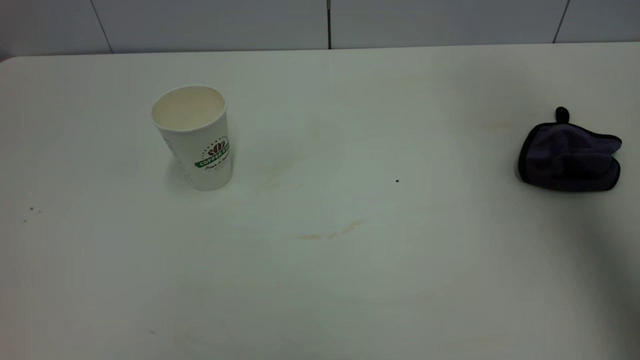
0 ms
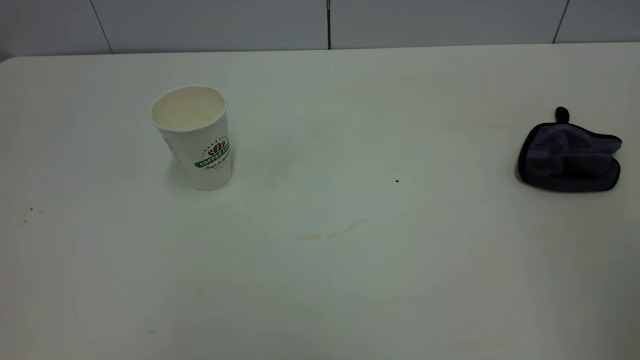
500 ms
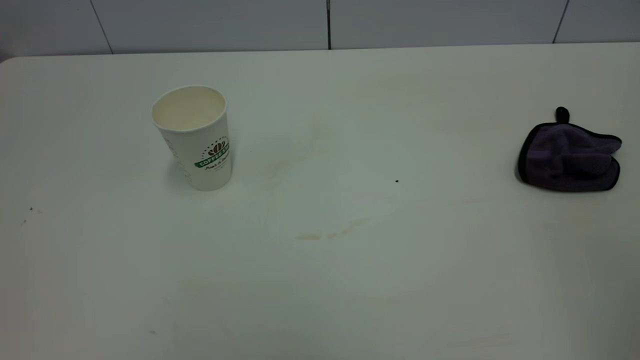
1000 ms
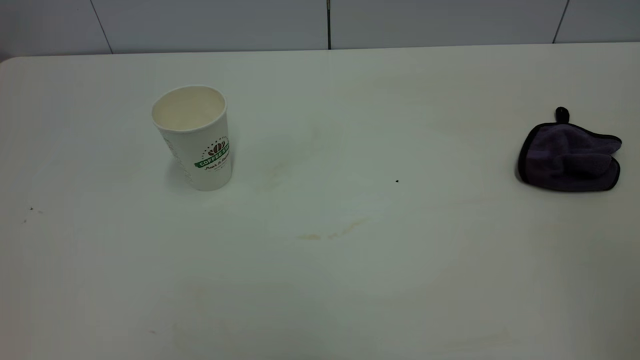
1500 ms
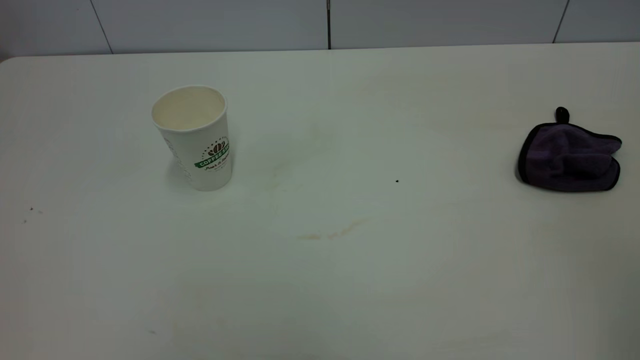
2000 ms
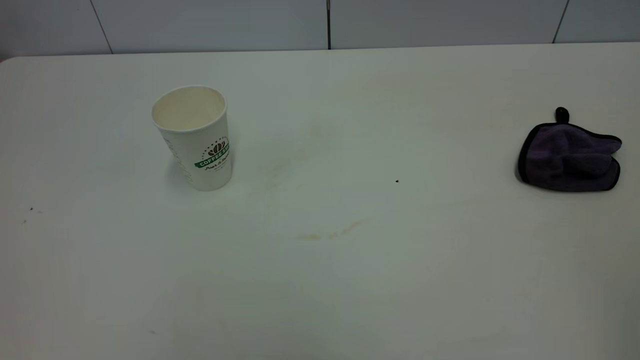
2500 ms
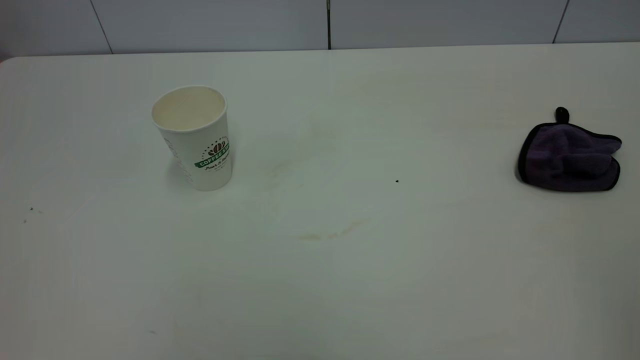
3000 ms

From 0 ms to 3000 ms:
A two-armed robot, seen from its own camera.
Task of the whole recording: the left gripper pick up the fallen cup and place it upright, the right gripper grasp the purple rag and wipe the tea stain on the table, the right gripper put the purple rag back in its original position.
From 0 ms to 1500 ms: The right gripper moves backward, approximately 25 cm.

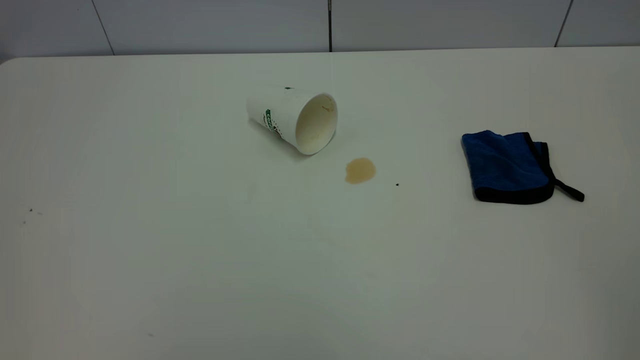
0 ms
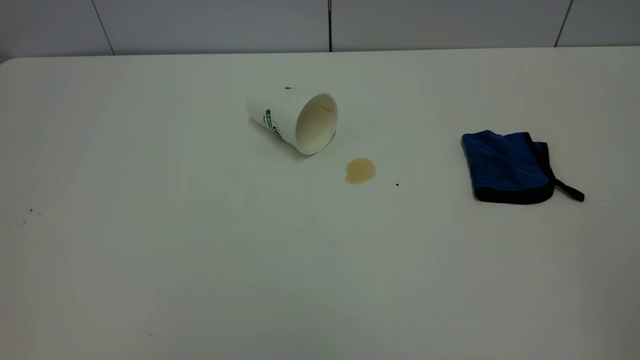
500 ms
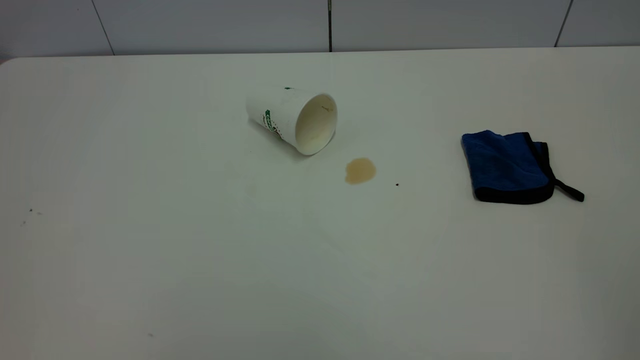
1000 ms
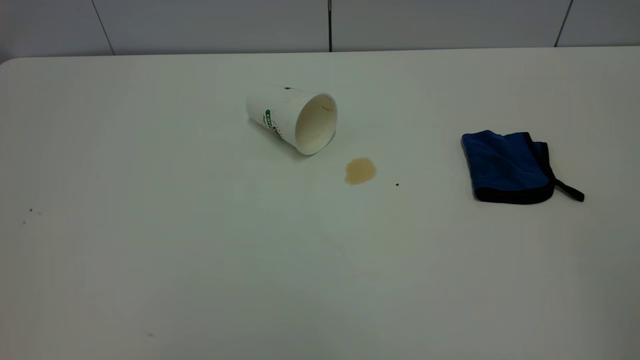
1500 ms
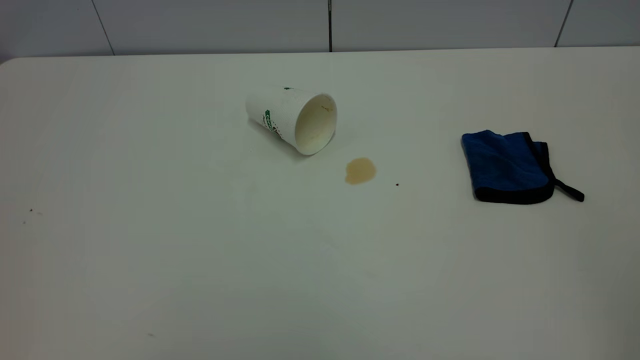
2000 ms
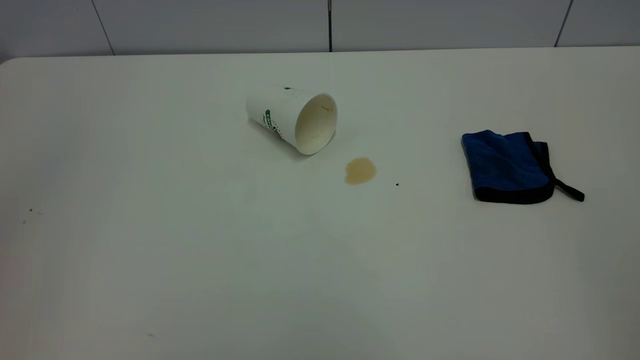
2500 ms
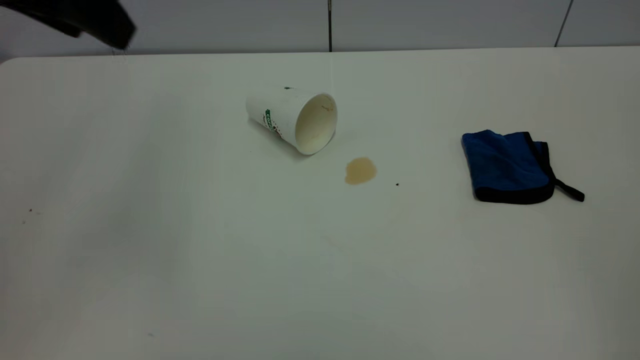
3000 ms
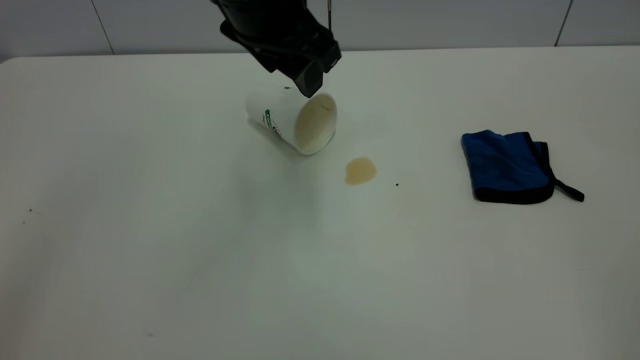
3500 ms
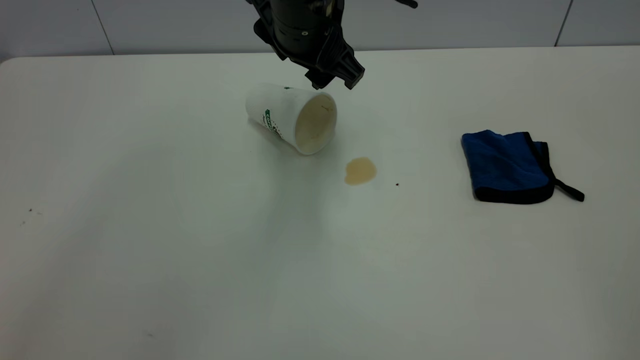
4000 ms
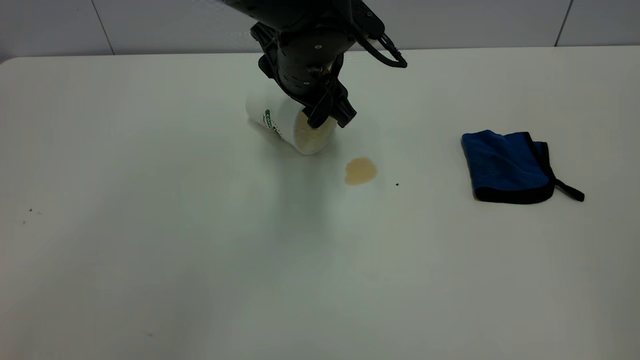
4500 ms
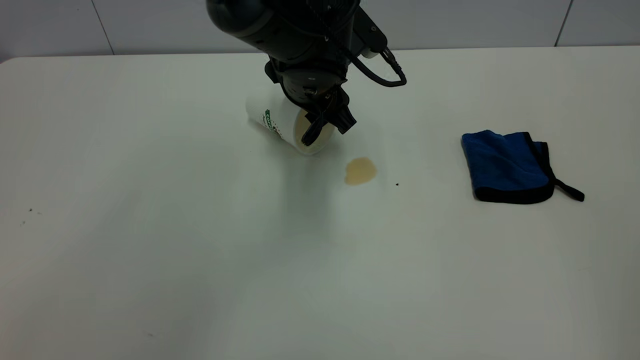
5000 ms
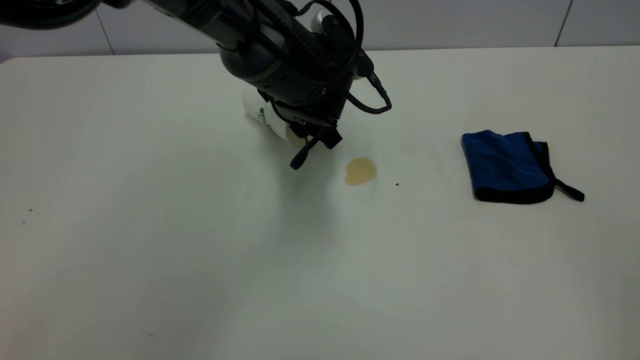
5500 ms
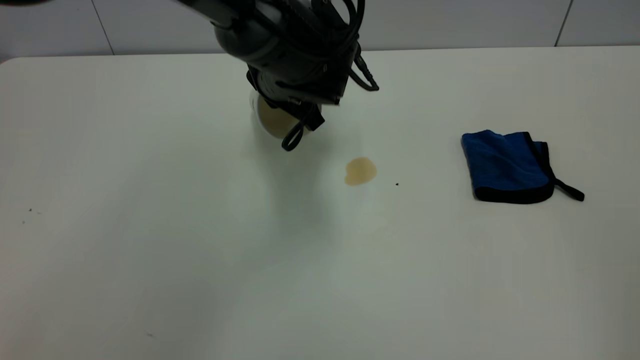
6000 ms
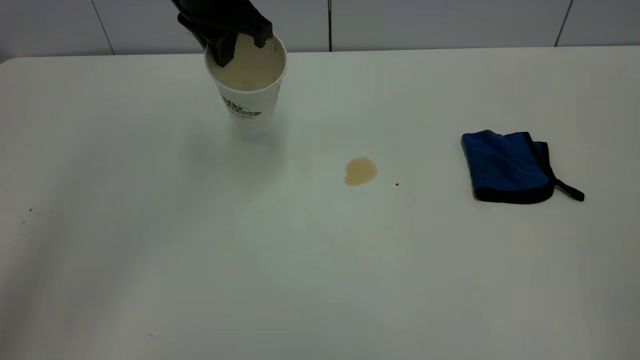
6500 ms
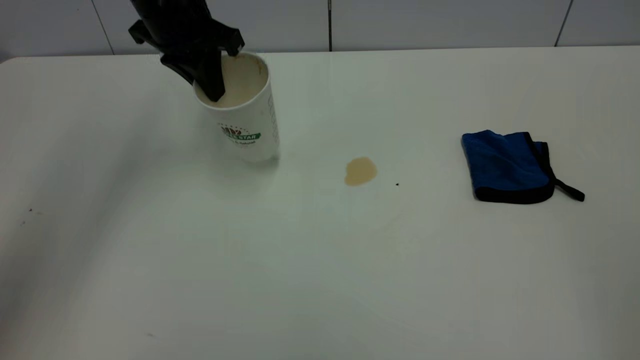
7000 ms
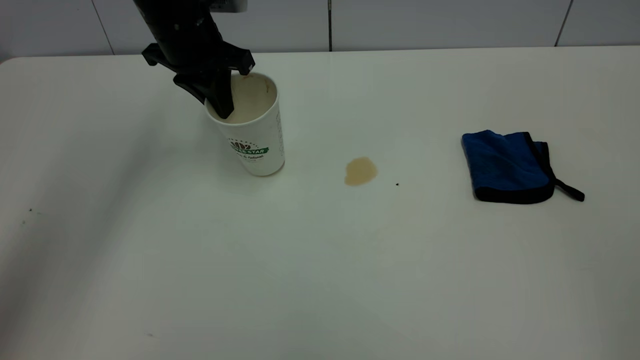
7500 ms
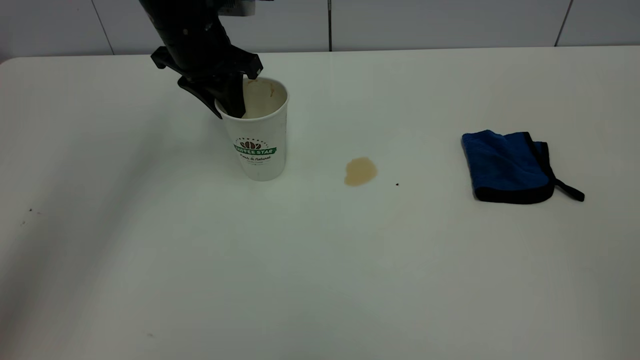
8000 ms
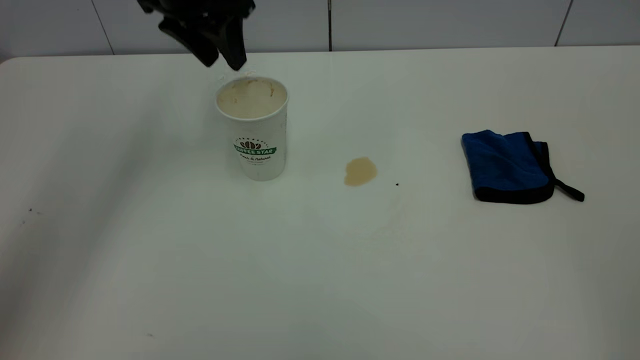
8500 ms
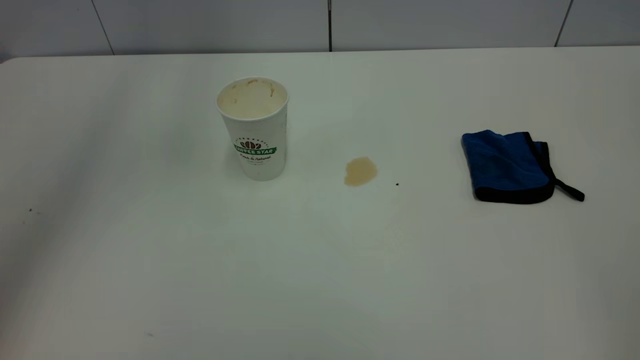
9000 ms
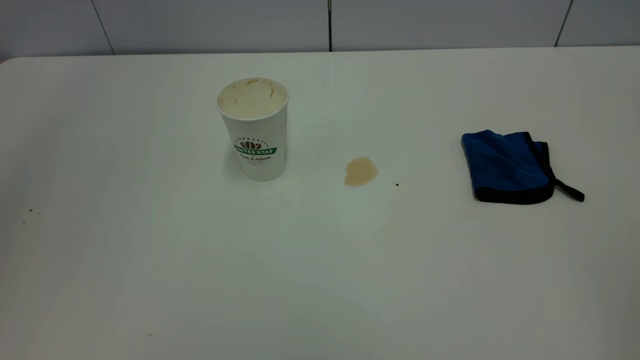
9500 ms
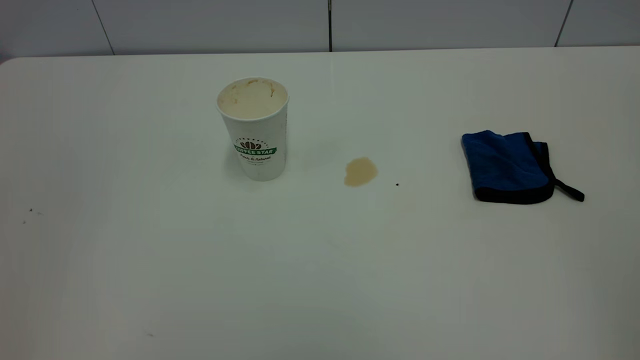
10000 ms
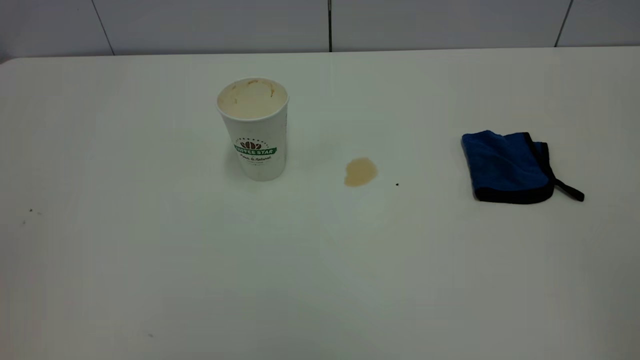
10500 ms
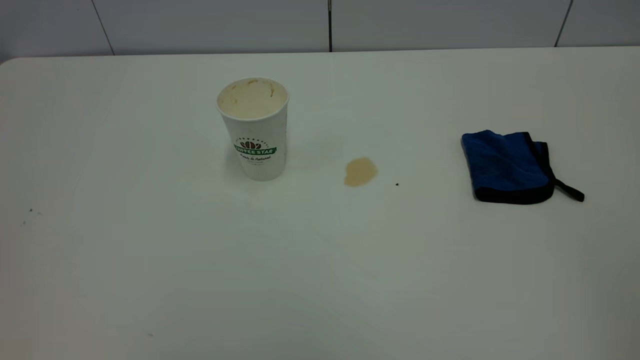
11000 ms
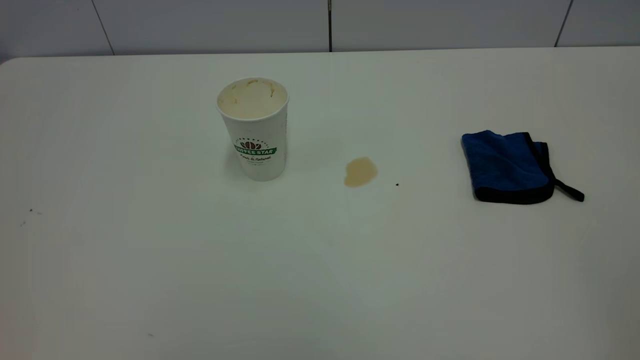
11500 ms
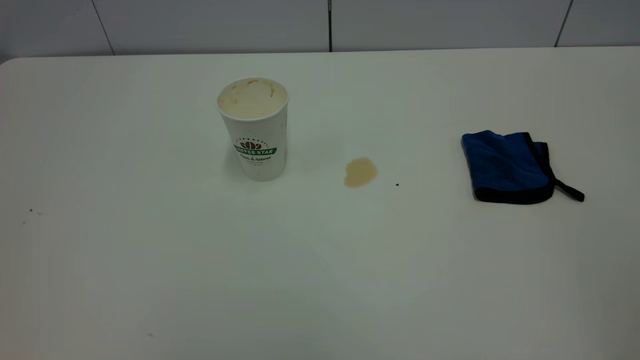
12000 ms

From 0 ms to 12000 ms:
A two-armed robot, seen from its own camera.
Task of the whole recording: the left gripper pick up the fallen cup and place it upright, the right gripper grasp the blue rag and wipe the tea stain on the table, the right gripper put the blue rag back in its original position.
Step, from 0 ms to 8000 ms: Stand the paper cup upright.
From 2000 ms to 4000 ms: The left gripper is displaced forward, to the right and downward by about 50 cm.
From 4000 ms to 6000 ms: The left gripper goes approximately 5 cm downward, and closes its fingers.
From 6000 ms to 8000 ms: The left gripper travels to the left and forward by approximately 15 cm, and opens its fingers.
From 8000 ms to 10000 ms: The left gripper moves backward and upward, roughly 40 cm.

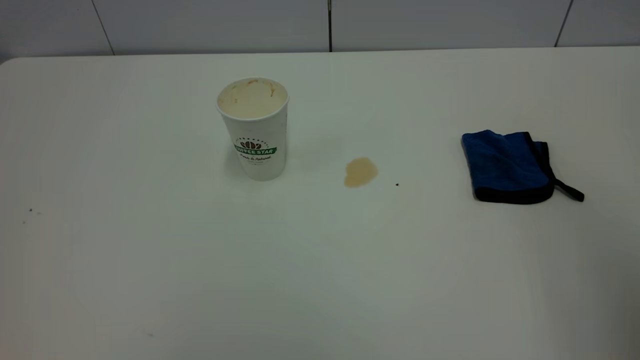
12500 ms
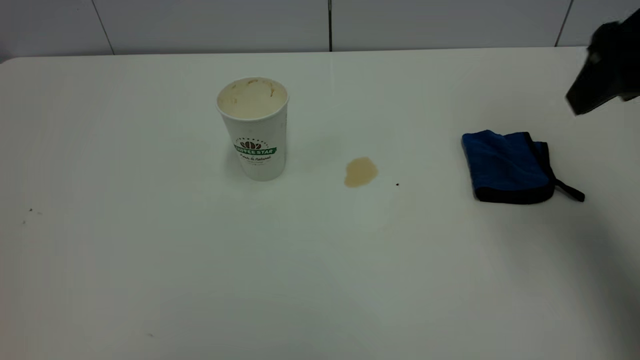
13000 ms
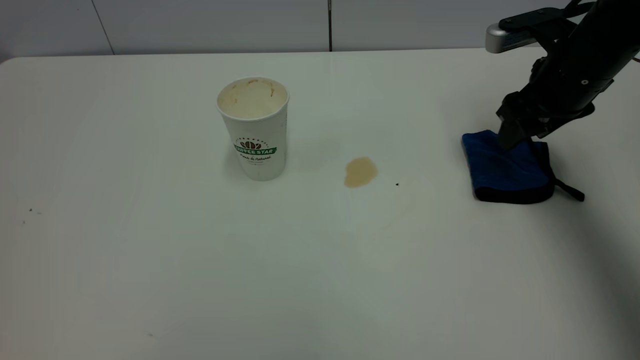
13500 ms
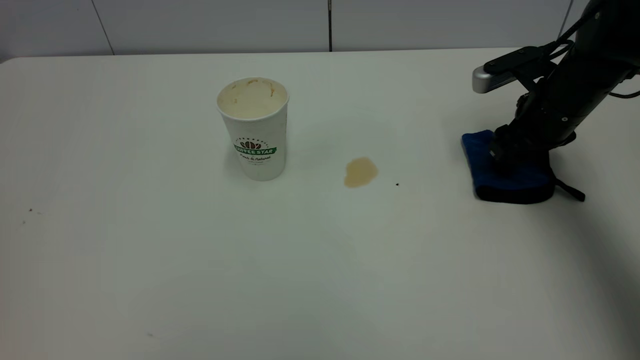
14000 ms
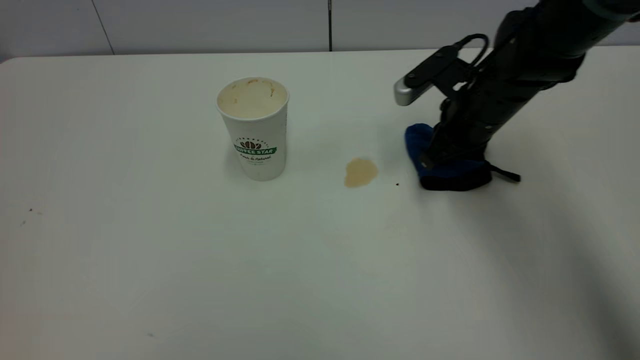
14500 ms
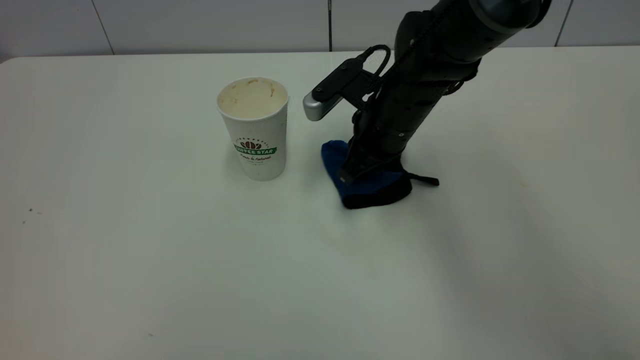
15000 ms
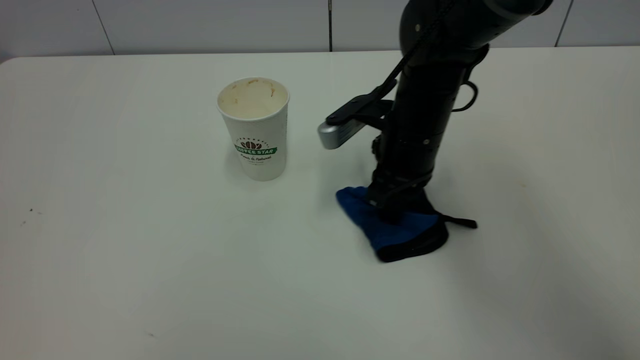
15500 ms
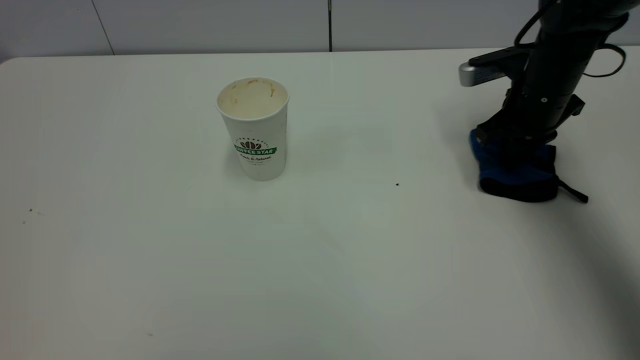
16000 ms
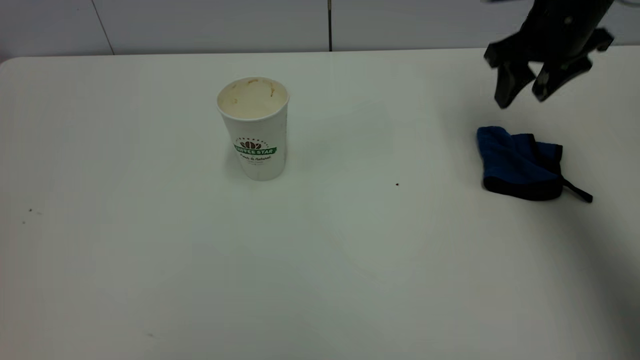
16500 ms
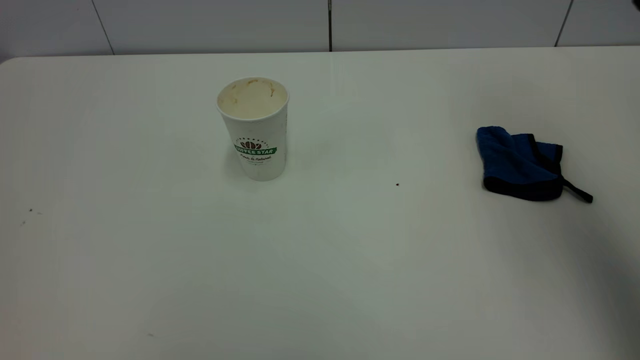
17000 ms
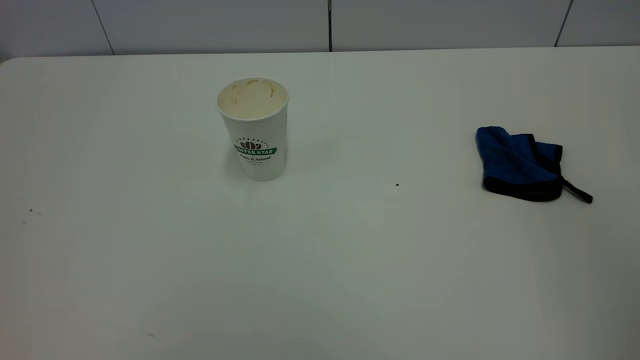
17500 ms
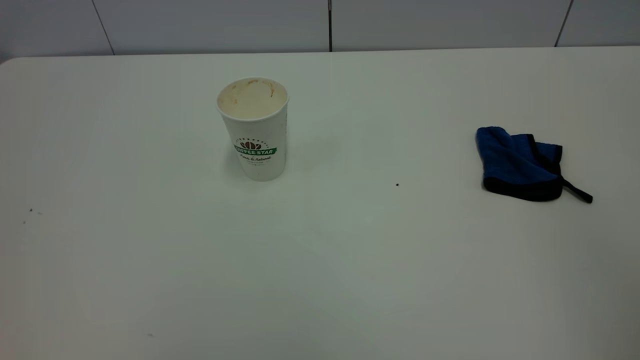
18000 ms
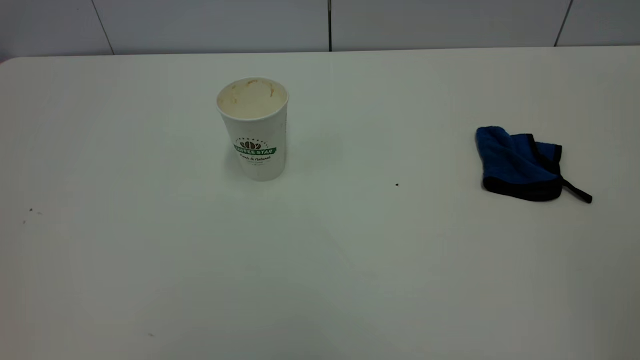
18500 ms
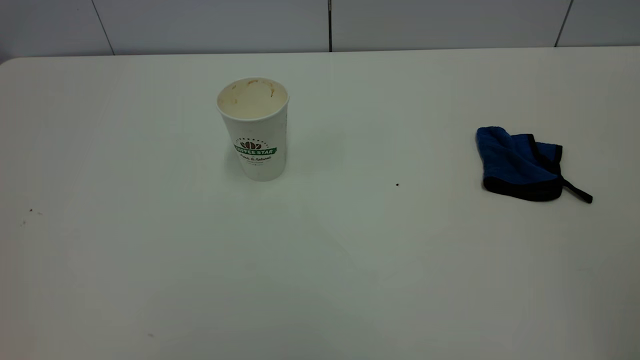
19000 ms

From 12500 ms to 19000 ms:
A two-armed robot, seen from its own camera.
Task of the whole recording: the left gripper pick up the fallen cup and place it upright, the right gripper grasp the blue rag and wipe the tea stain on the table, the right gripper put the blue rag back in its original position.
Step, from 12500 ms to 16500 ms: Wipe the stains off the table with a rag.
From 12500 ms to 14500 ms: The right gripper is displaced forward and downward by some 40 cm, and closes.
From 14500 ms to 17000 ms: The right gripper is displaced upward and backward by some 35 cm, and opens up.
From 17000 ms to 19000 ms: The right gripper moves backward, roughly 25 cm.
